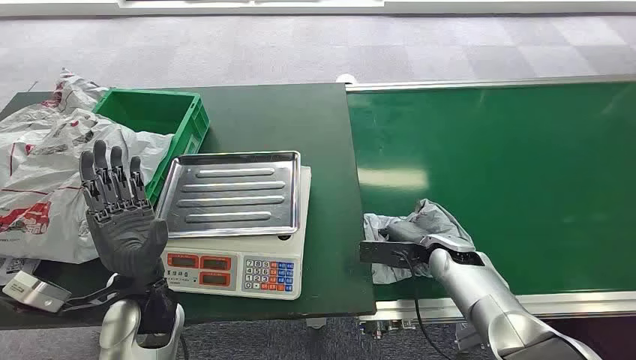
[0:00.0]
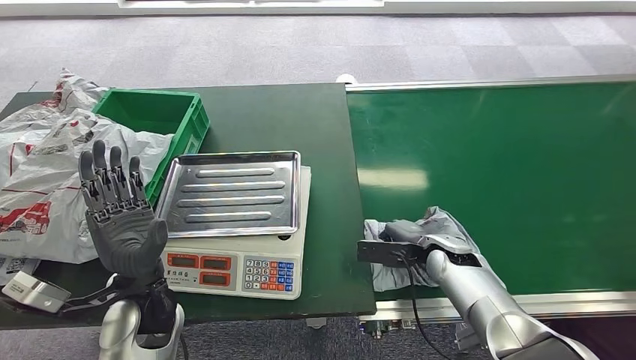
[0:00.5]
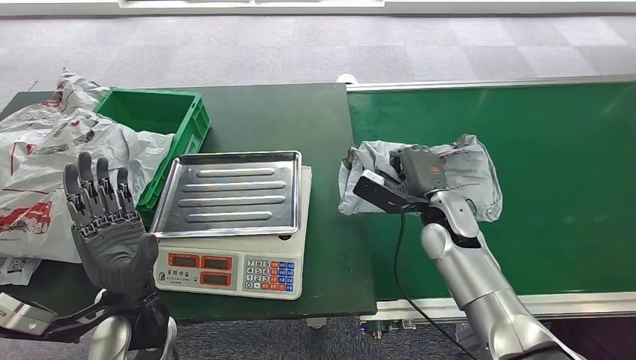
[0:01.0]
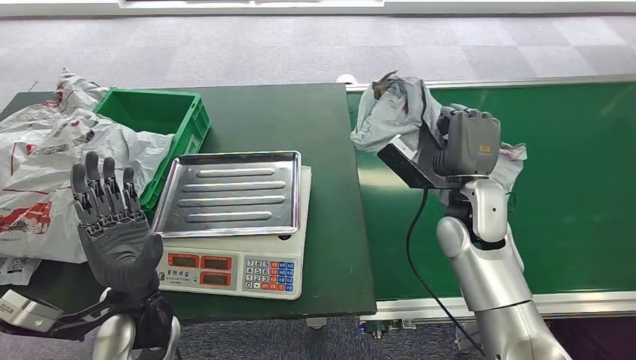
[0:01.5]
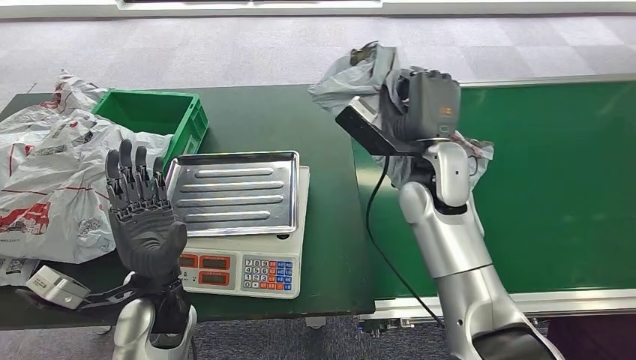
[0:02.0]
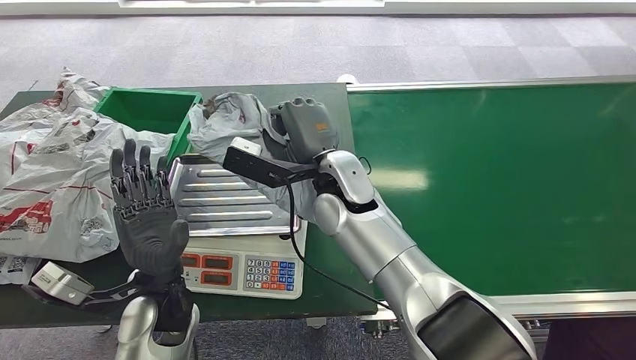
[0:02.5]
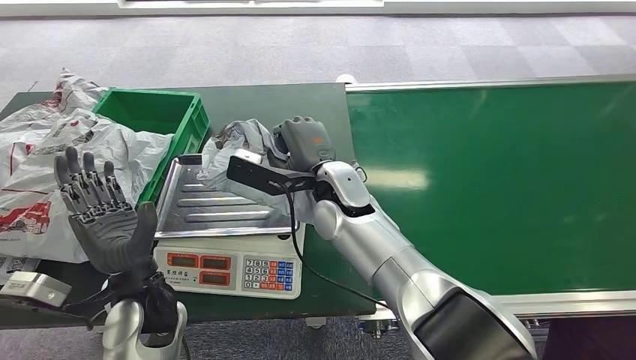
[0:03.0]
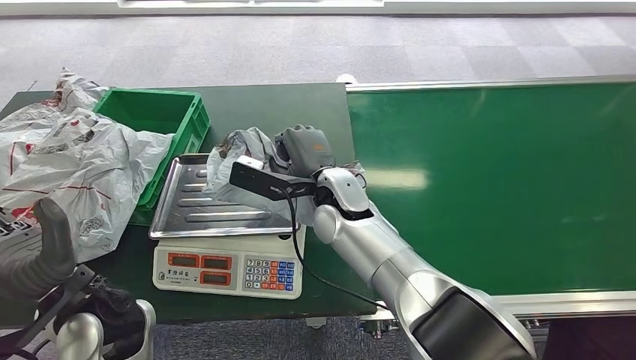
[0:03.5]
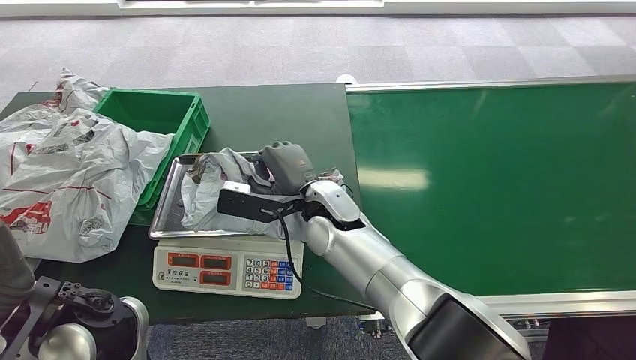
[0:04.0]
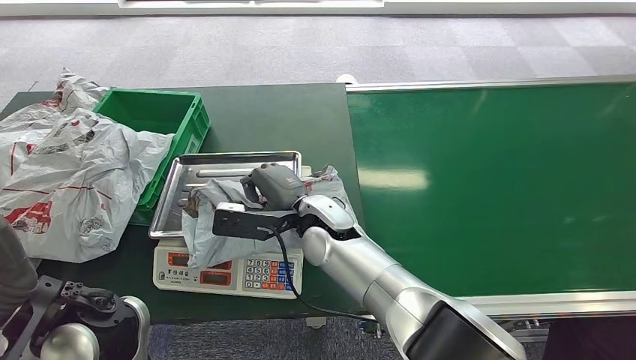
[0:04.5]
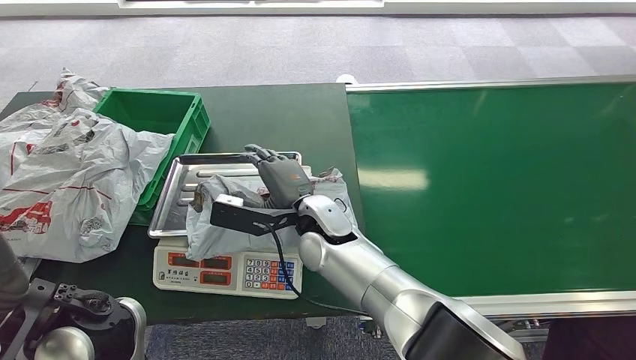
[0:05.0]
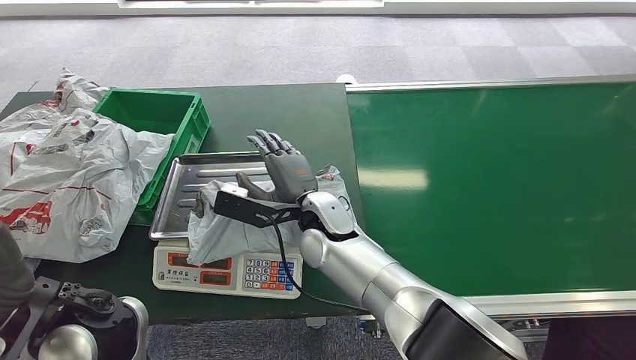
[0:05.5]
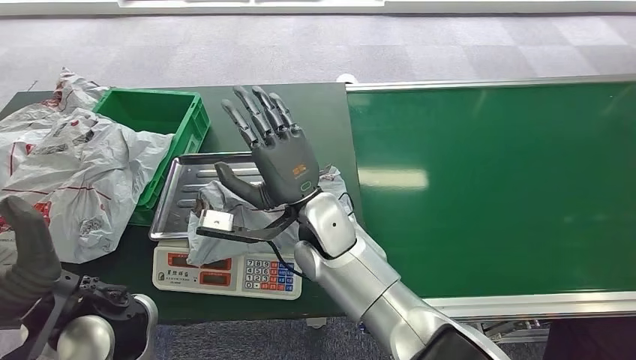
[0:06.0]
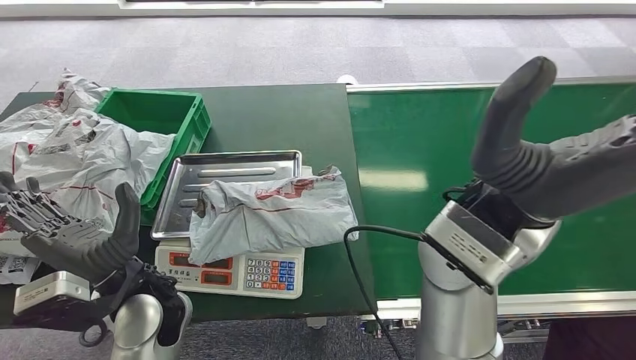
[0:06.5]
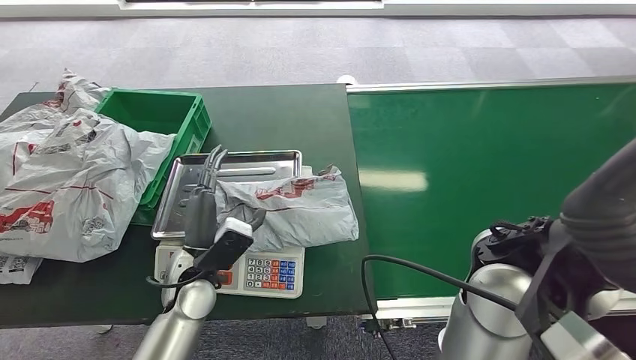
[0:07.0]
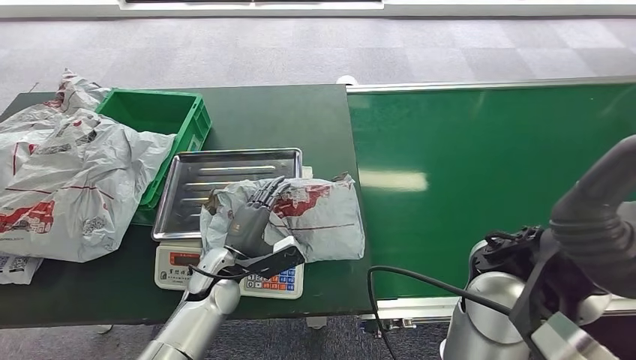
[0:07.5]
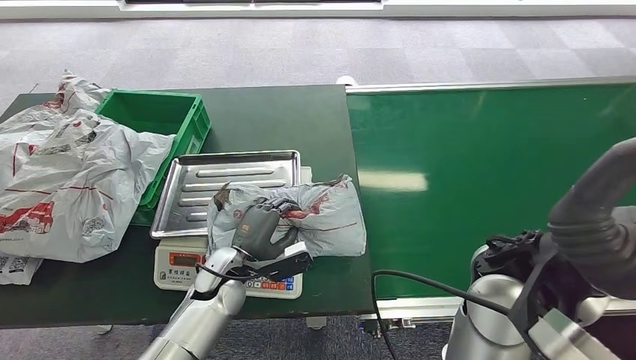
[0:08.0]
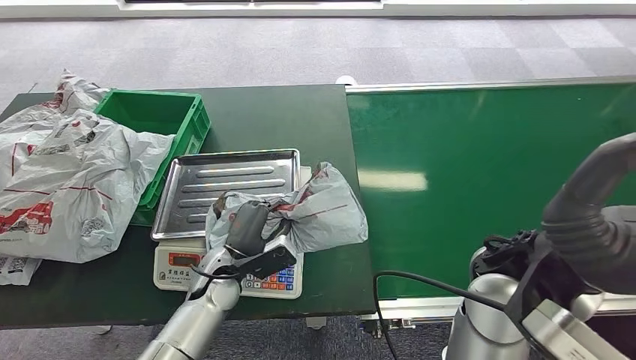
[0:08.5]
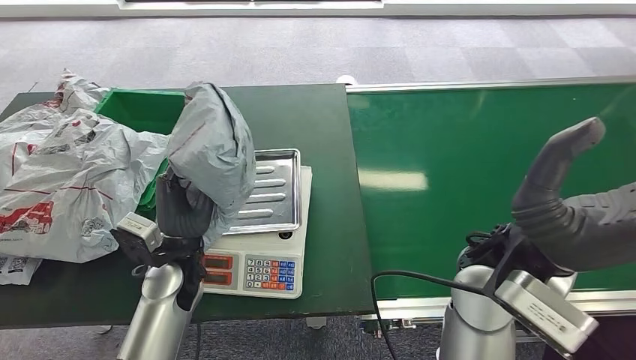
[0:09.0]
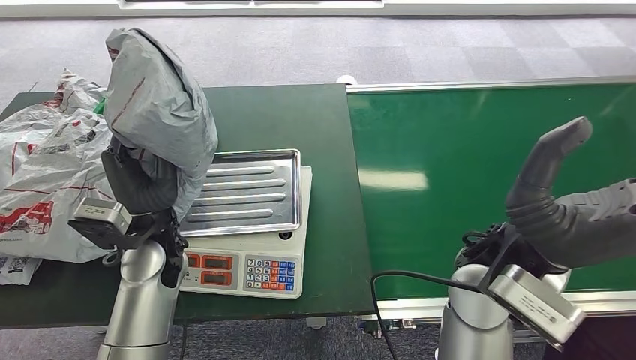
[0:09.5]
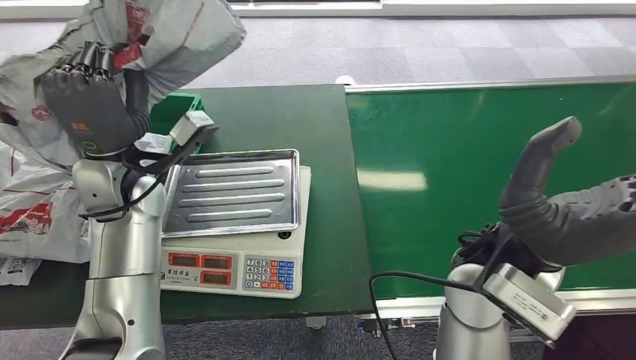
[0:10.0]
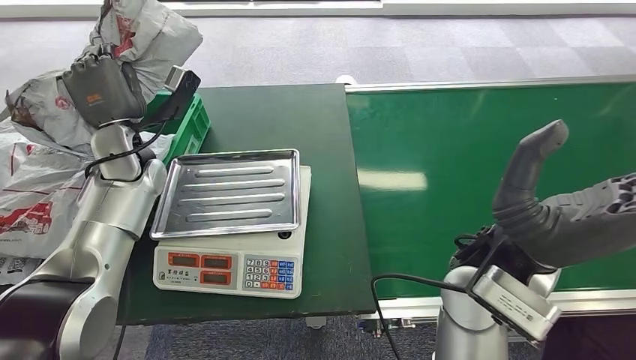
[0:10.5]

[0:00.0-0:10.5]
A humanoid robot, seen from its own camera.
Task of the whole recording: Weigh the package on the weighing device and place it in the left basket.
Step, 0:00.0 to 0:02.0: Pick up the package from the conveyor belt.
Step, 0:02.5 to 0:06.5: Place the package onto the inbound machine.
Step, 0:07.0 to 0:09.5: Pick up the package from the inbound machine.
Step, 0:10.0 to 0:10.5: Place the package into the parcel locker.
